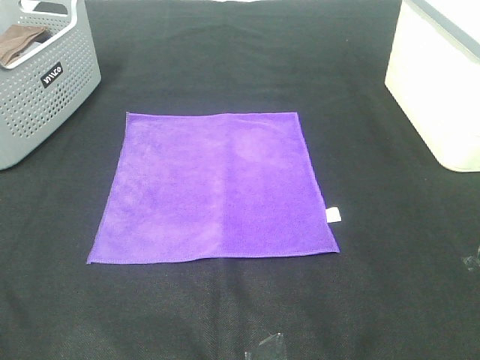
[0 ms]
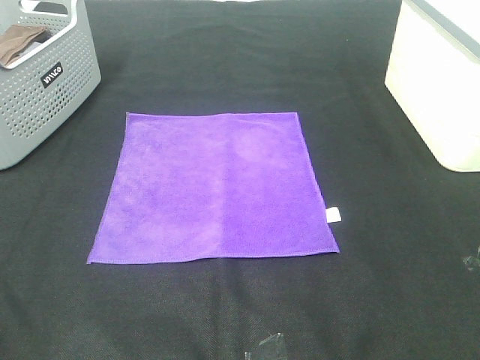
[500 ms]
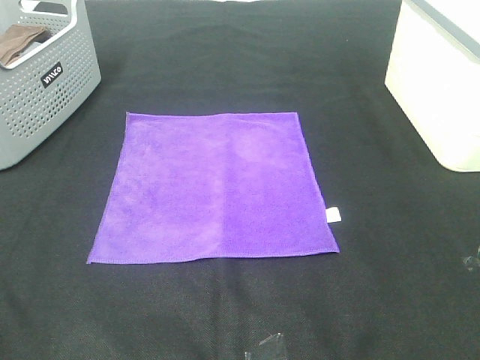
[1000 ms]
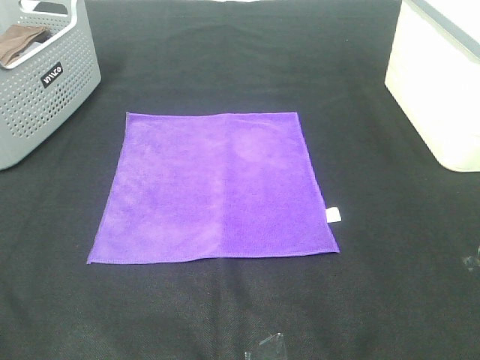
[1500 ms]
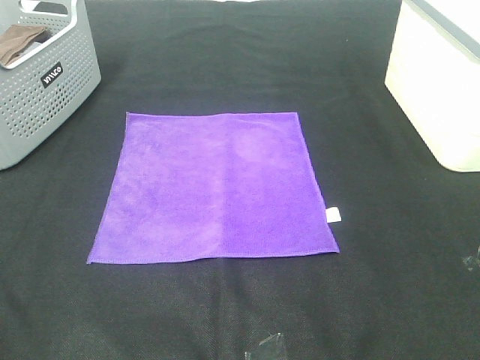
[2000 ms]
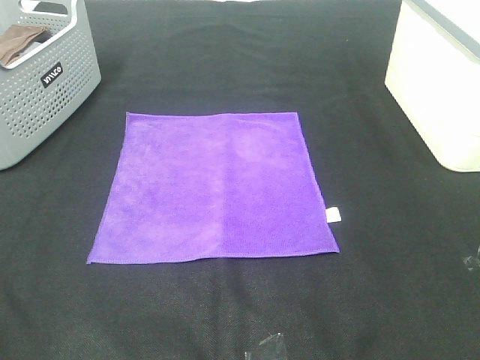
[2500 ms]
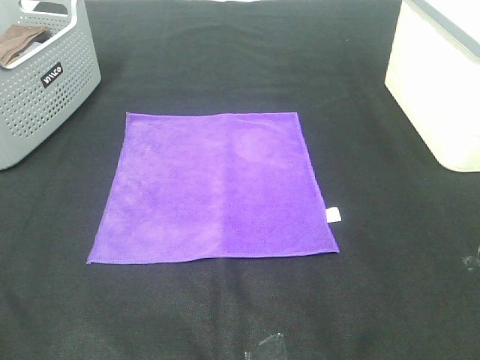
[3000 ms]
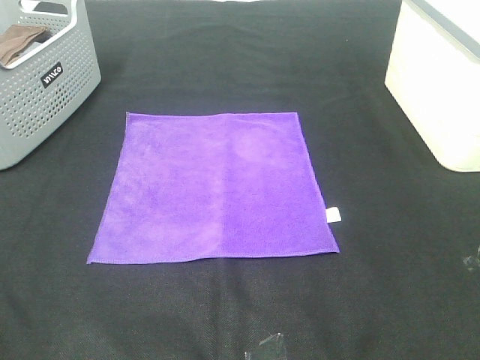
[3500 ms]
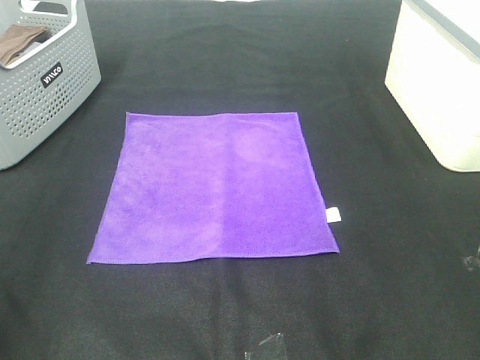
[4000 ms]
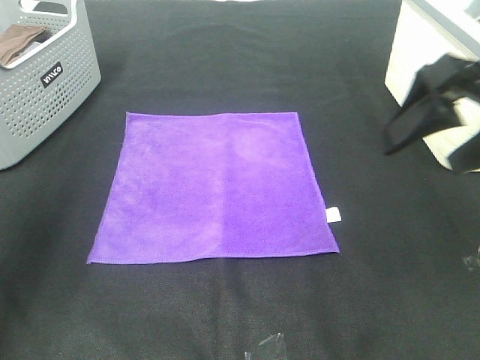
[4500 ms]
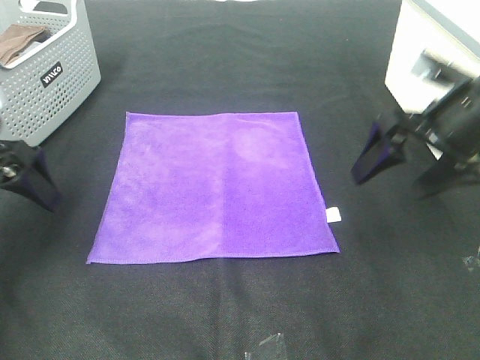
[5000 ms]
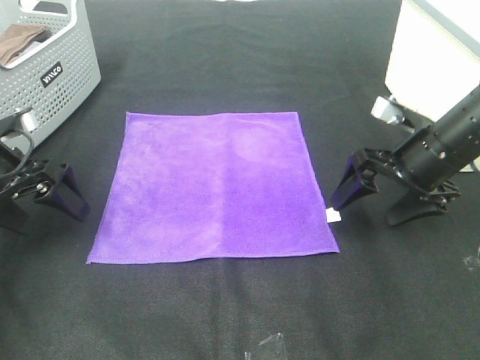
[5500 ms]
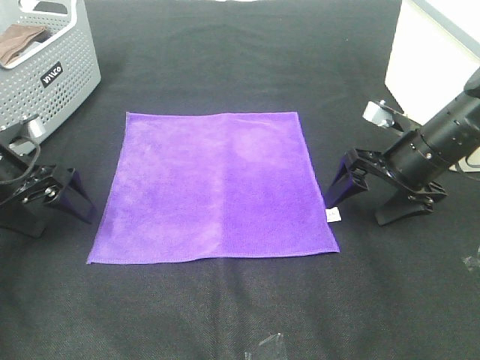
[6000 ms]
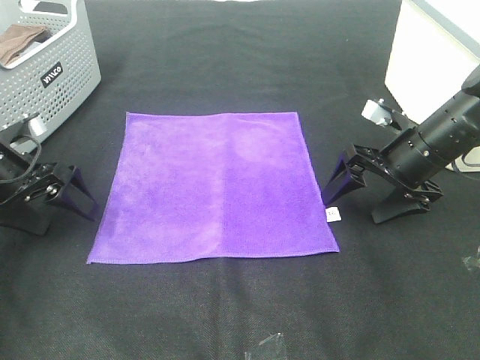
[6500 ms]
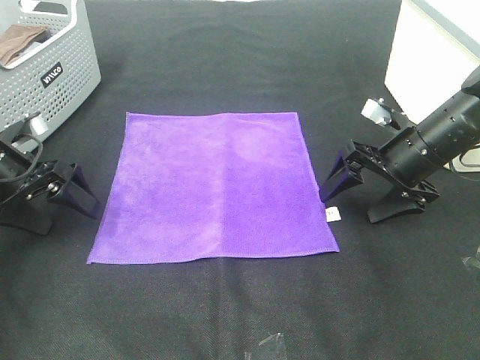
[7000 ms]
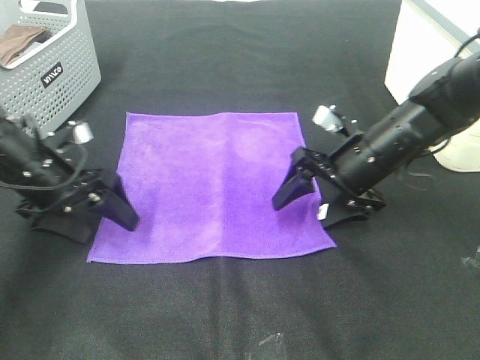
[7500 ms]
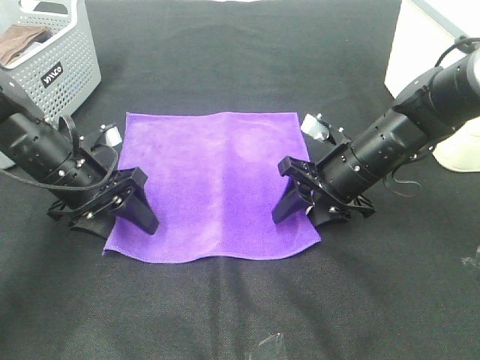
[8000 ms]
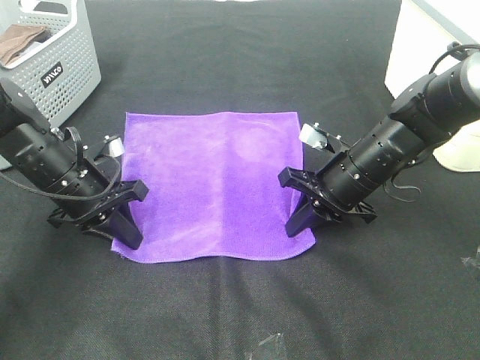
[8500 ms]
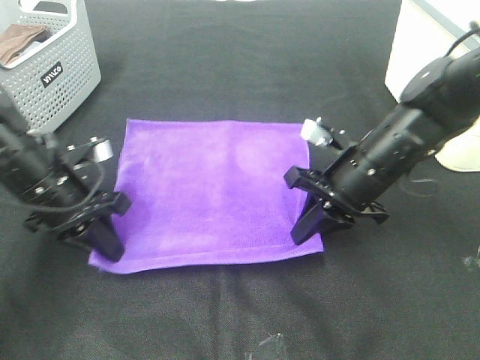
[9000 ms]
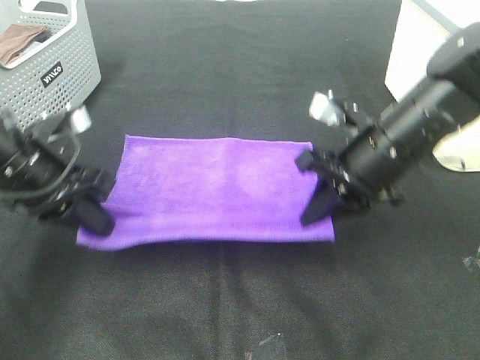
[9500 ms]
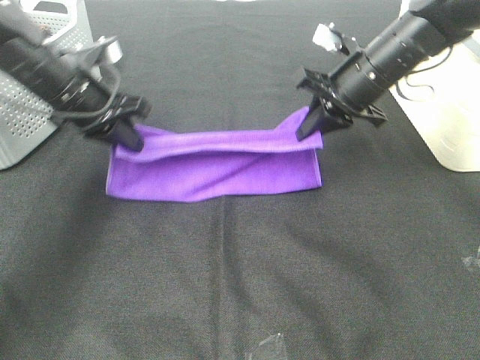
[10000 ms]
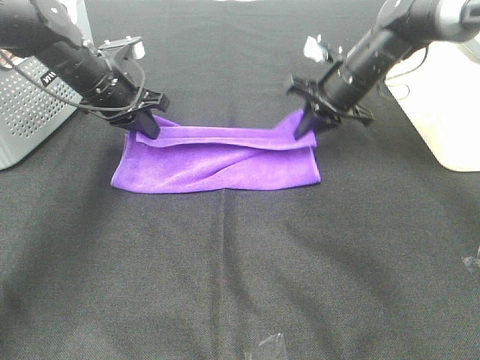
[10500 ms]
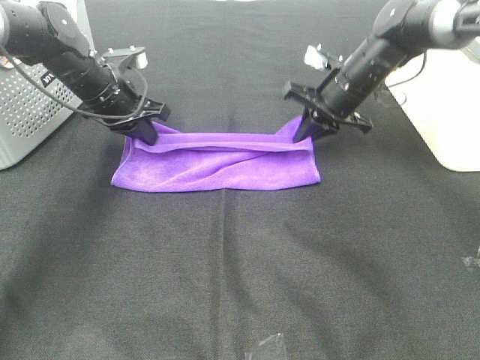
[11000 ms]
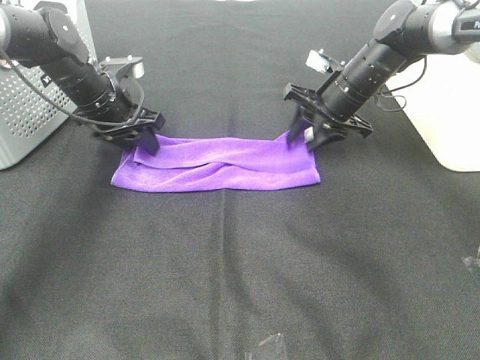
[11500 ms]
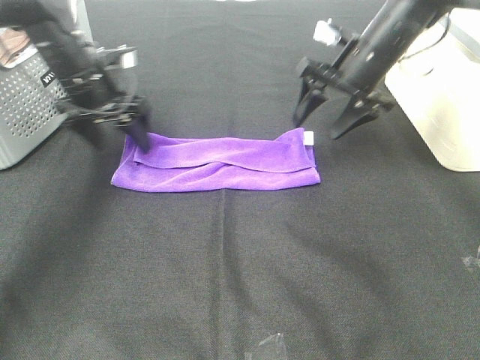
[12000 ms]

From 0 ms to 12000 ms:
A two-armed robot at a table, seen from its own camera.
Task of the whole recording: Fold towels.
Step, from 0 ms to 8000 ms: Left hand: grab the bottom left corner of purple towel.
Step, from 0 ms to 8000 ms: Right hand: grab the bottom right corner of purple towel.
Step, from 8500 ms to 11000 ms: Left hand: fold the purple towel up.
Step, from 8500 ms to 11000 ms: Right hand: fold the purple towel up.
From 0 ms to 2000 ms: Neither gripper changes place.
From 4000 ms to 6000 ms: The left gripper shifts about 30 cm downward and forward. The right gripper travels forward and downward by roughly 30 cm.
From 6000 ms to 8000 ms: The right gripper moves to the left, approximately 10 cm, and closes its fingers. The left gripper is displaced to the right by about 10 cm, and closes its fingers.
From 8000 ms to 10000 ms: The left gripper travels upward and forward by approximately 10 cm, and closes its fingers, while the right gripper goes approximately 15 cm forward and upward, and closes up.
From 10000 ms to 12000 ms: The left gripper moves forward, roughly 5 cm, and opens up. The right gripper opens.

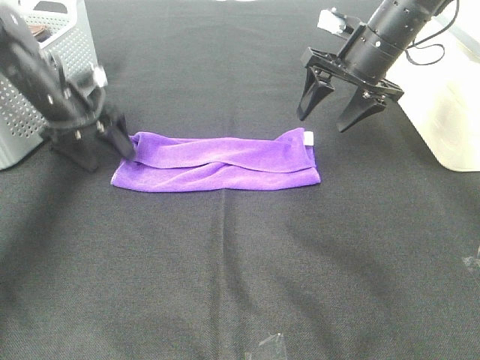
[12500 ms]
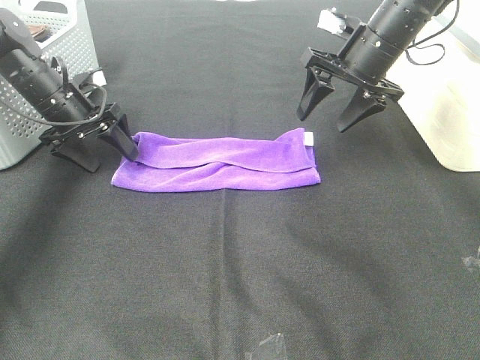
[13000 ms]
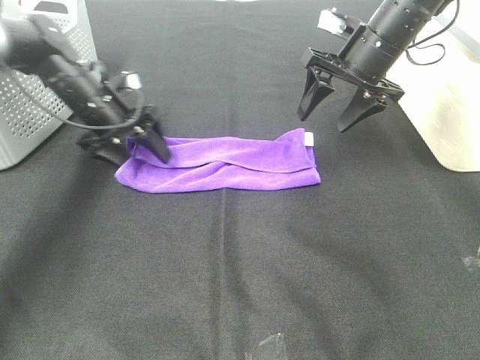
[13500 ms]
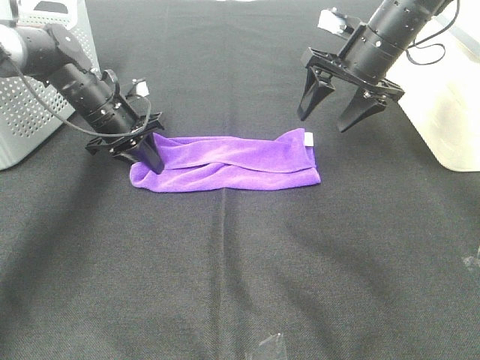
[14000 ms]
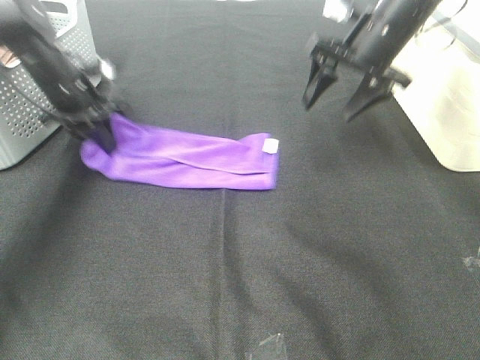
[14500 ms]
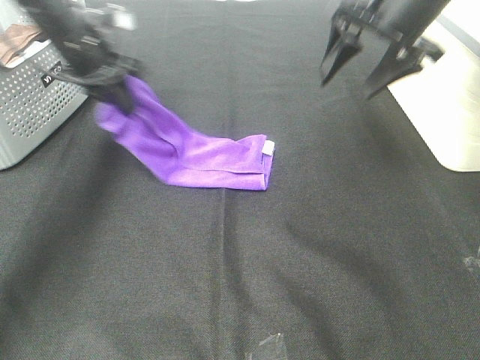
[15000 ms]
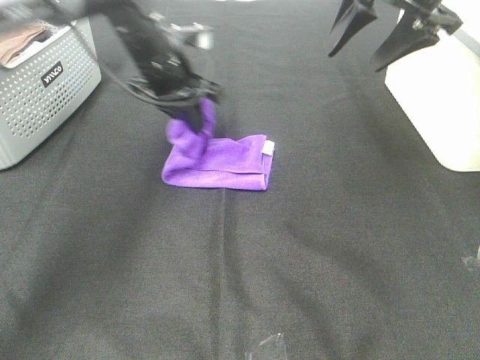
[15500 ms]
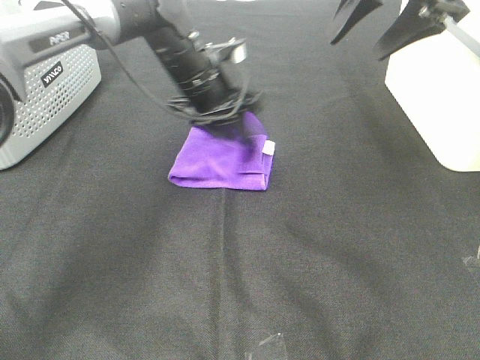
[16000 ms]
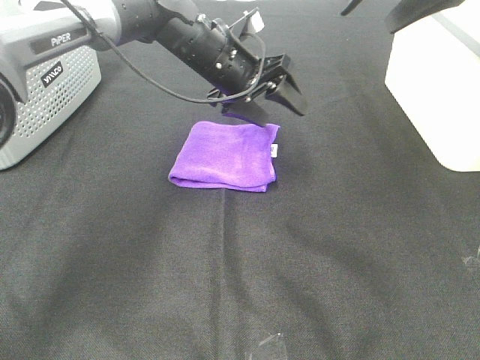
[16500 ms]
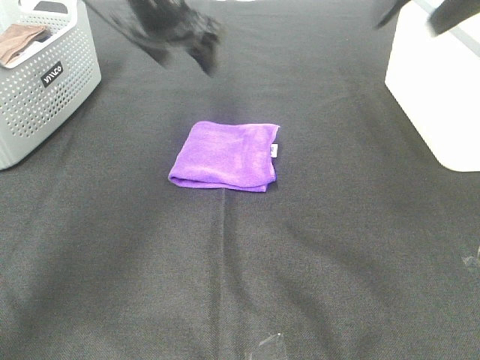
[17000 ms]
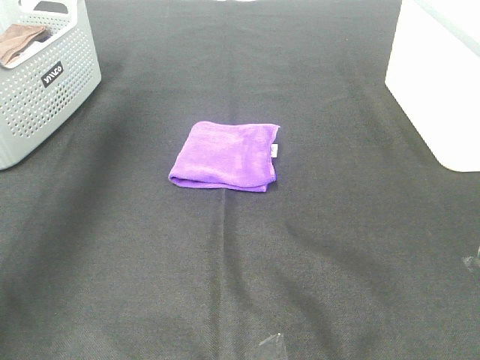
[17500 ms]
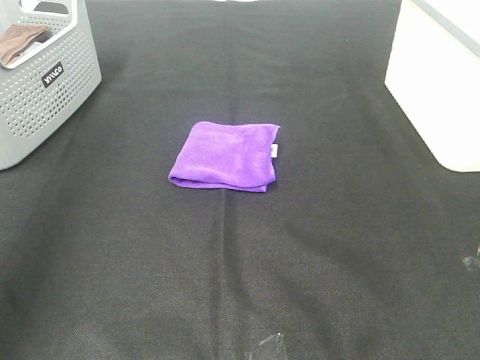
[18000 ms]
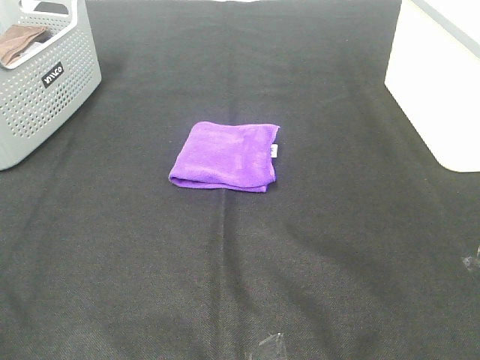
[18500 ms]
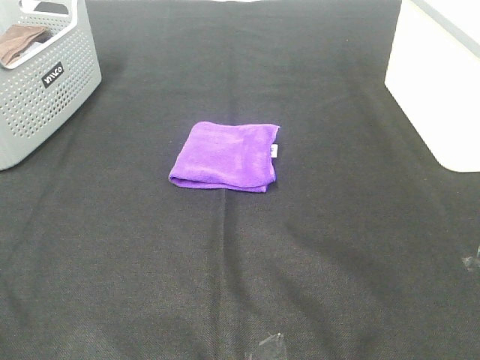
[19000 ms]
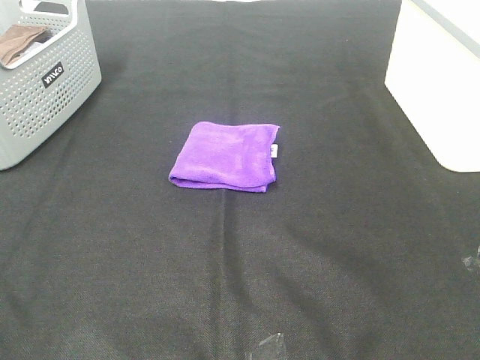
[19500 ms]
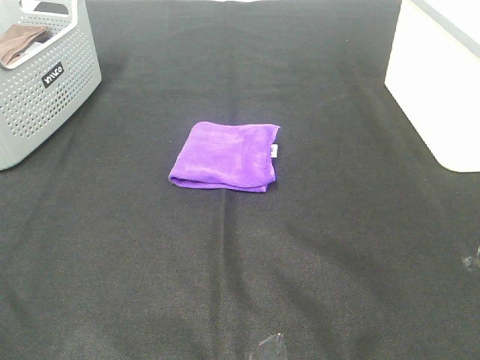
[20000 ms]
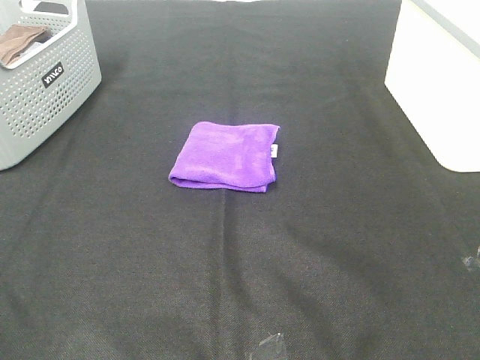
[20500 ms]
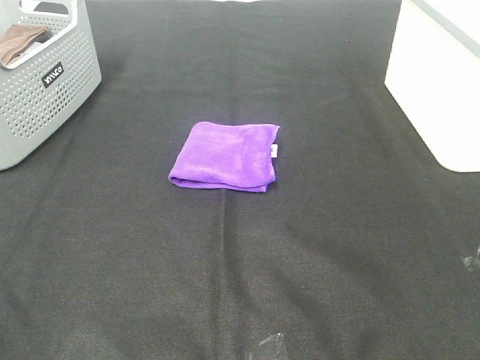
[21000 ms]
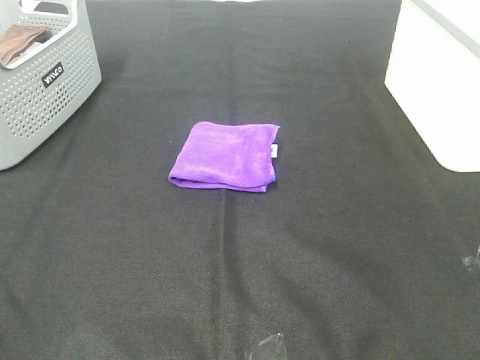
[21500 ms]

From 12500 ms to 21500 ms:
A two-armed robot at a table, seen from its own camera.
Task of the whole recording: Fold towels.
Step, from 12500 ms to 15500 ms: Left hand: fold the purple towel from left to right.
From 12500 ms to 14500 ms: The left gripper closes up.
From 14500 ms to 17000 ms: The left gripper is displaced to the right and upward by approximately 20 cm, and opens. Meanwhile the right gripper goes approximately 20 cm upward and backward.
From 17000 ms to 19500 ms: Both grippers move backward, about 40 cm.

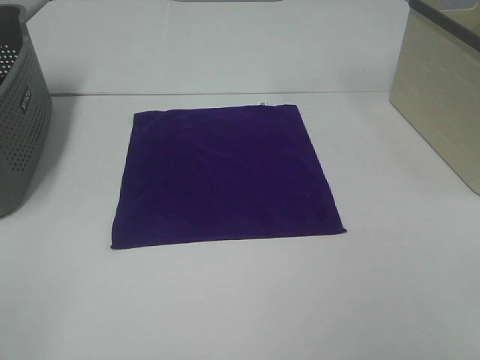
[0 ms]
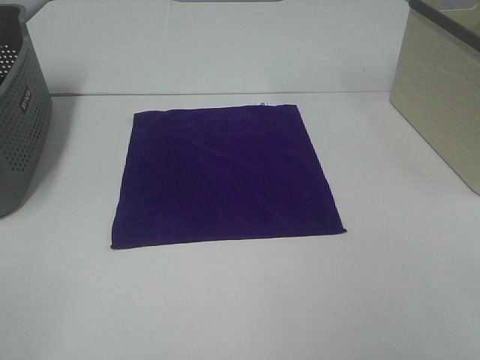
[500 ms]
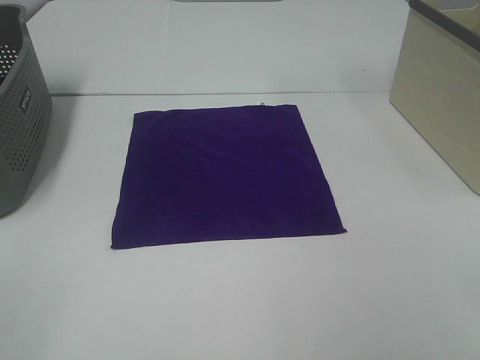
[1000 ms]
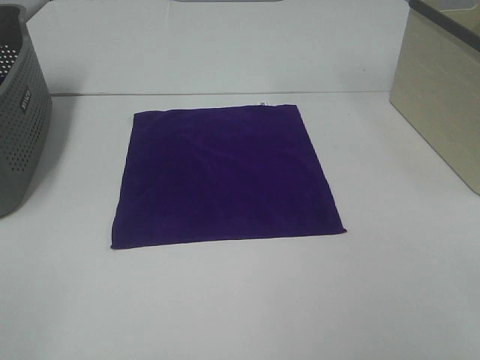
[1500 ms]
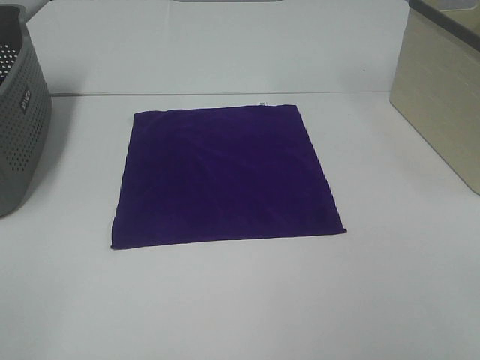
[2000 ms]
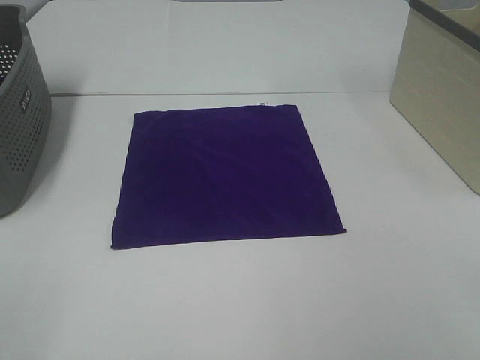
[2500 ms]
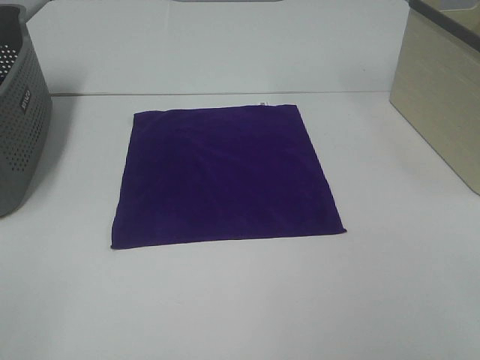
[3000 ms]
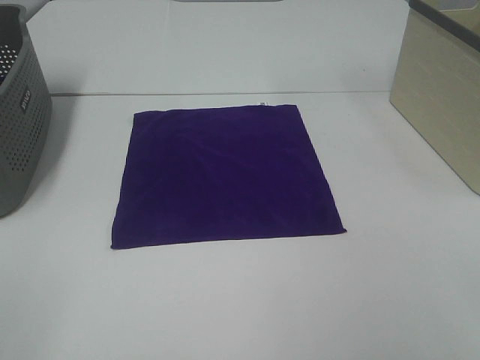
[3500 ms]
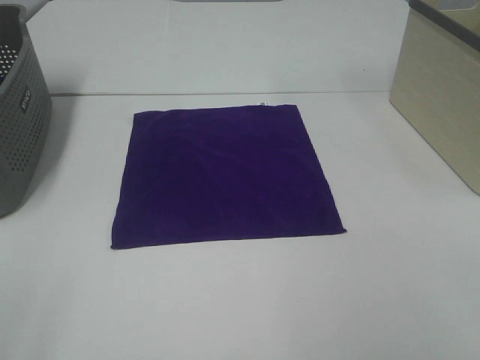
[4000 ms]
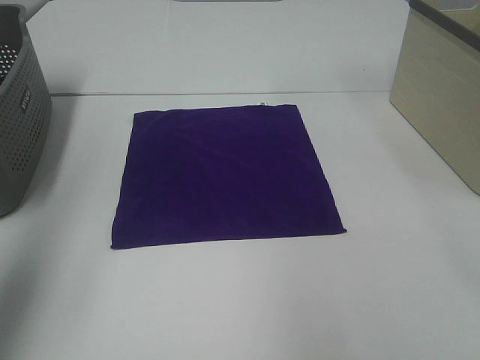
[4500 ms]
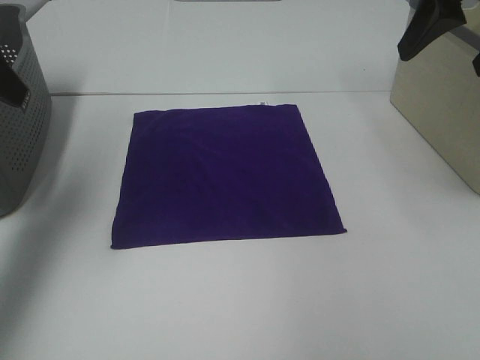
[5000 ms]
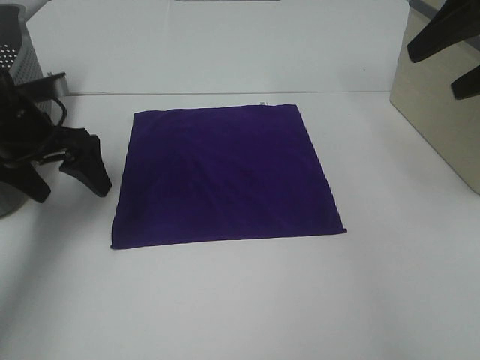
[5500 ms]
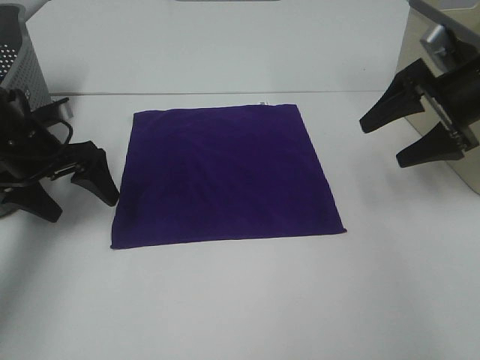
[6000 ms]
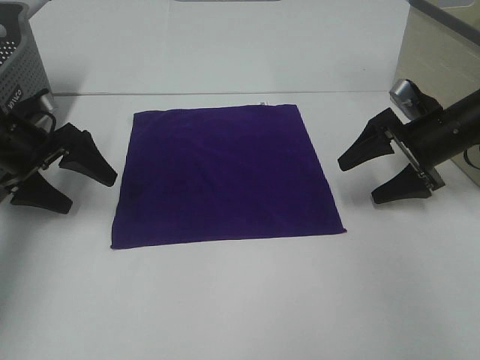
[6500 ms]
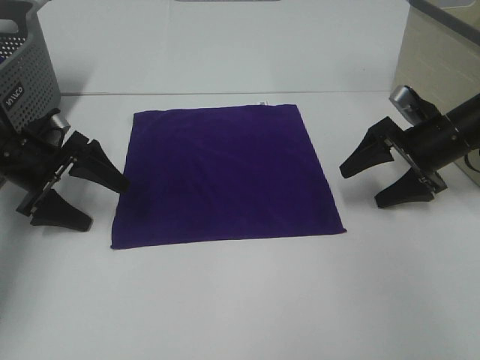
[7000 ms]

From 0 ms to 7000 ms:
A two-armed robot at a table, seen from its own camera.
Task of the whole recording: Fold towels.
From 0 ms to 3500 ms: The two grippers keep their place.
From 3500 ms to 5000 ms: The grippers both shift forward by about 30 cm.
From 5000 ms to 7000 ms: The grippers both shift downward by approximately 25 cm.
